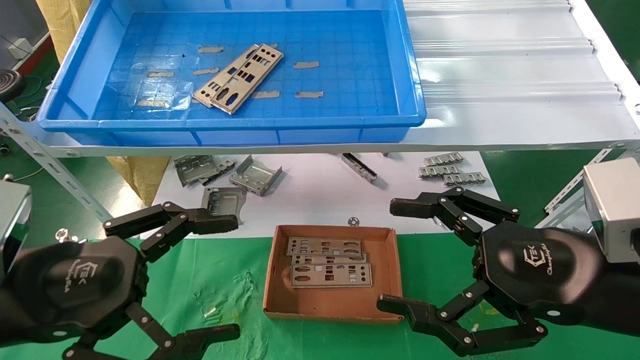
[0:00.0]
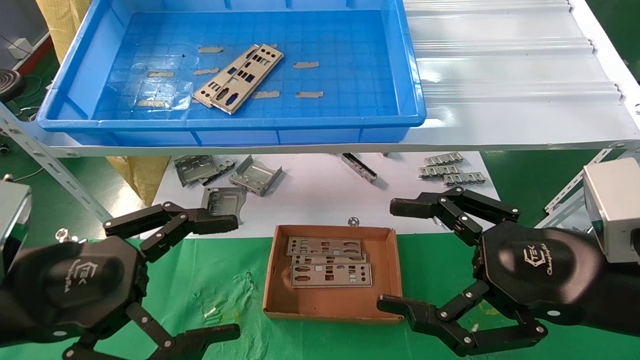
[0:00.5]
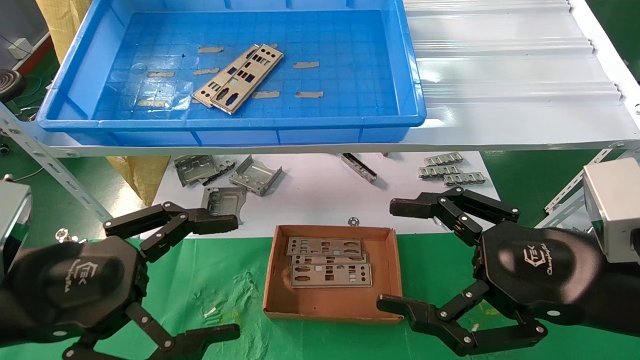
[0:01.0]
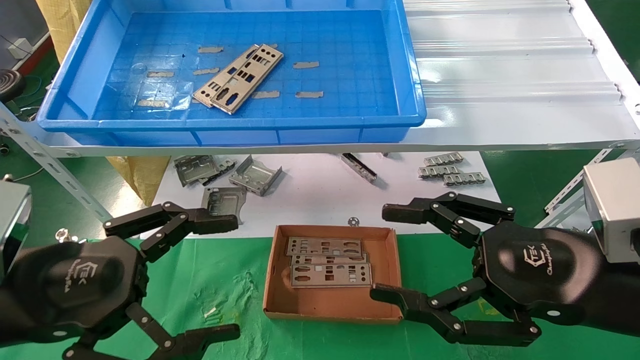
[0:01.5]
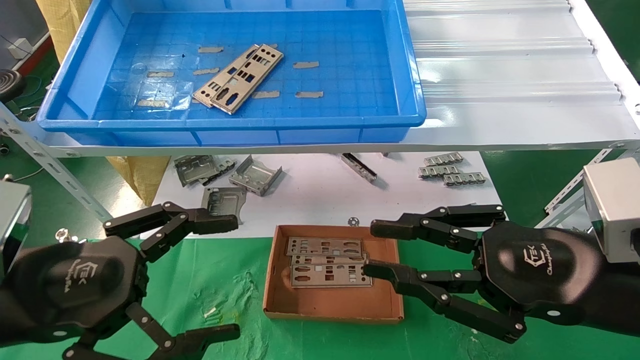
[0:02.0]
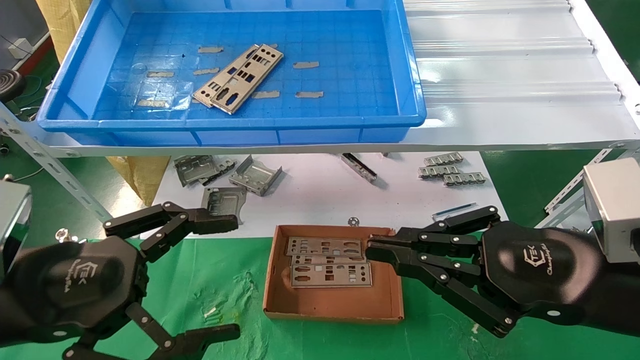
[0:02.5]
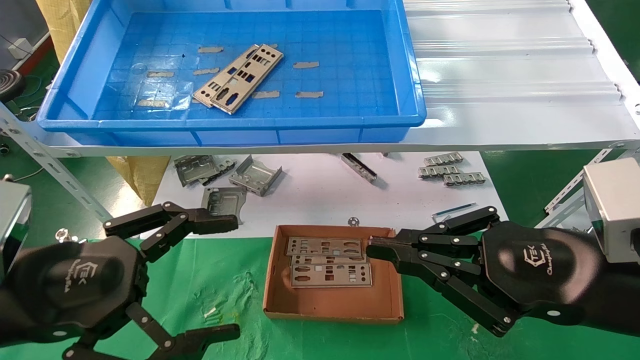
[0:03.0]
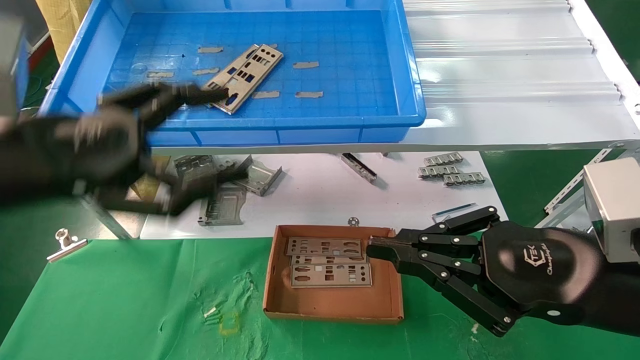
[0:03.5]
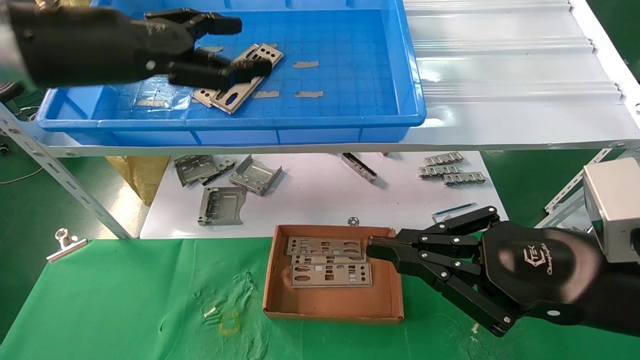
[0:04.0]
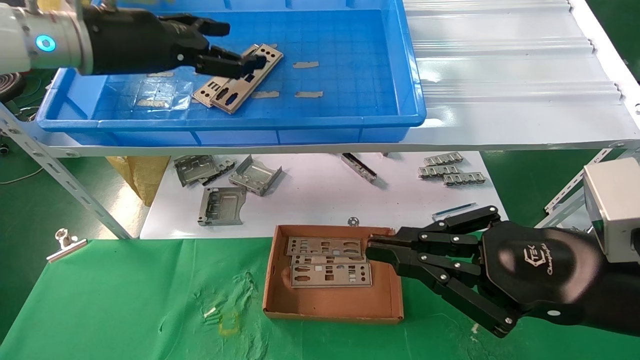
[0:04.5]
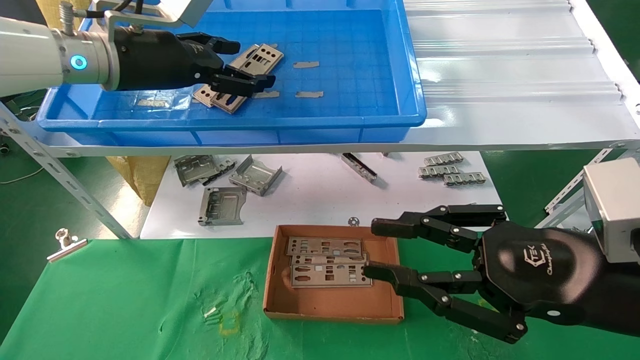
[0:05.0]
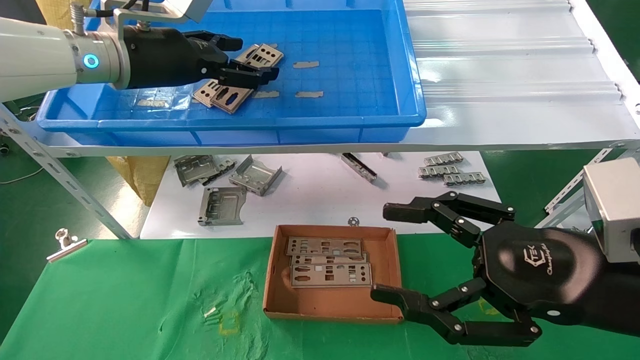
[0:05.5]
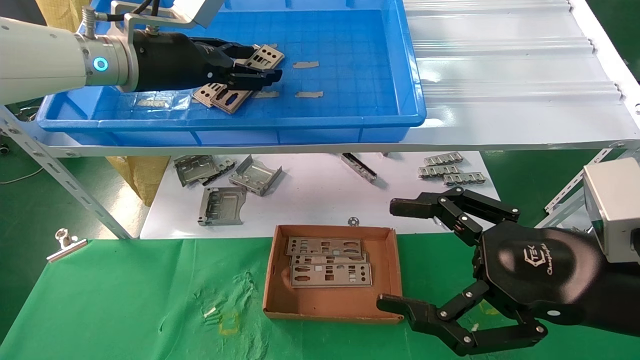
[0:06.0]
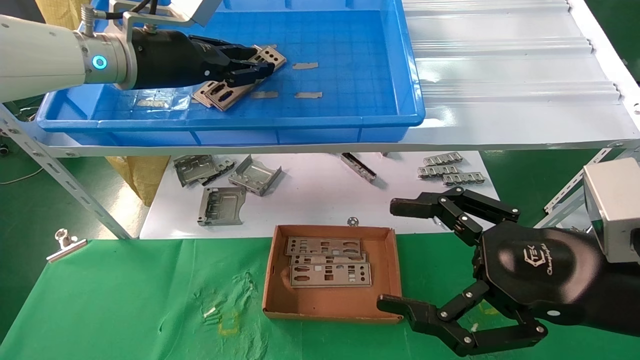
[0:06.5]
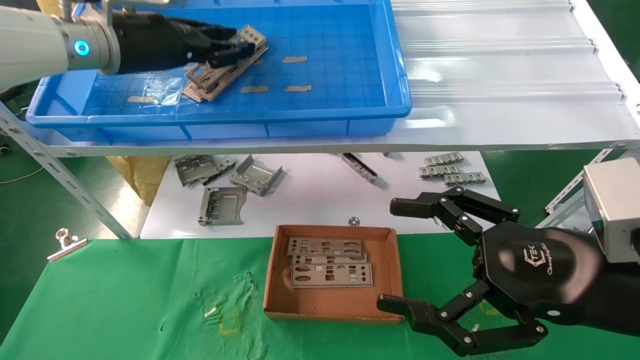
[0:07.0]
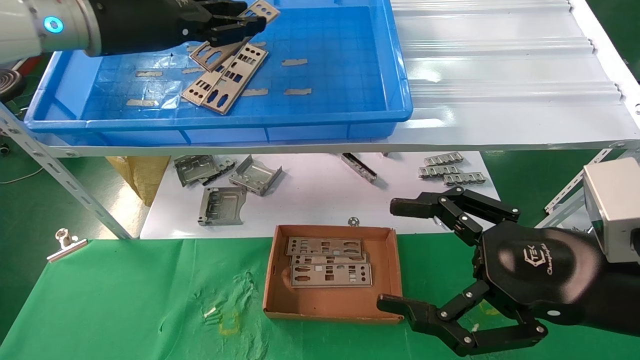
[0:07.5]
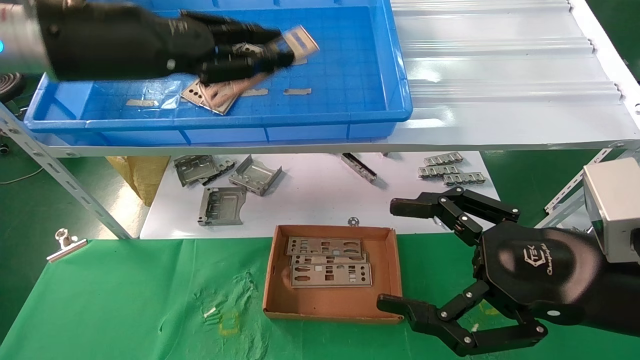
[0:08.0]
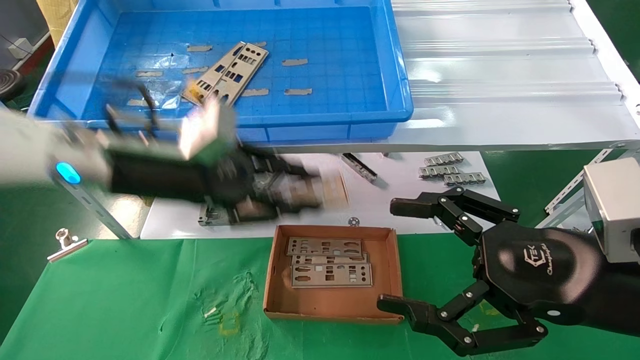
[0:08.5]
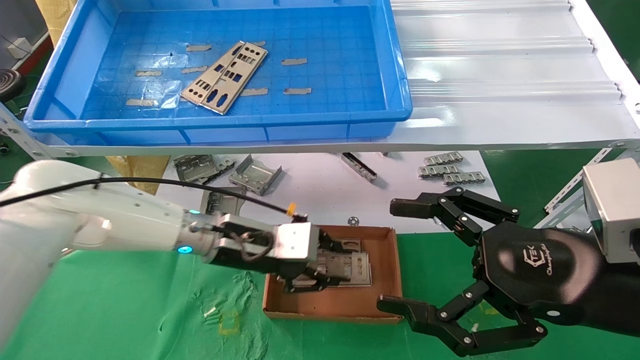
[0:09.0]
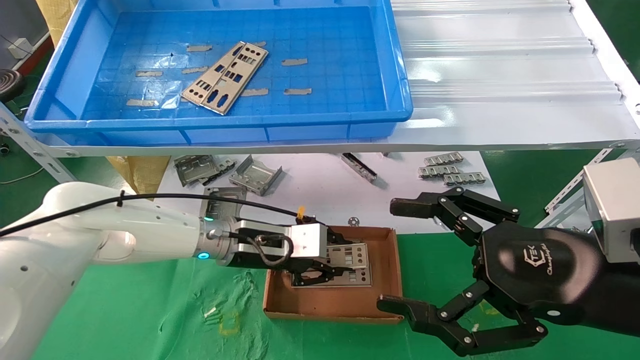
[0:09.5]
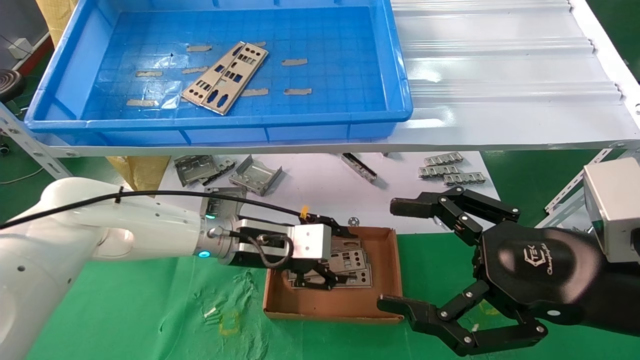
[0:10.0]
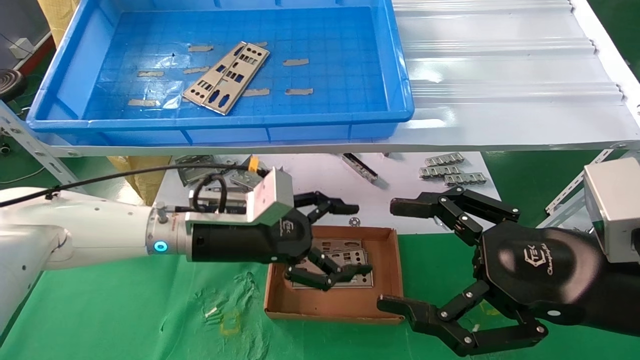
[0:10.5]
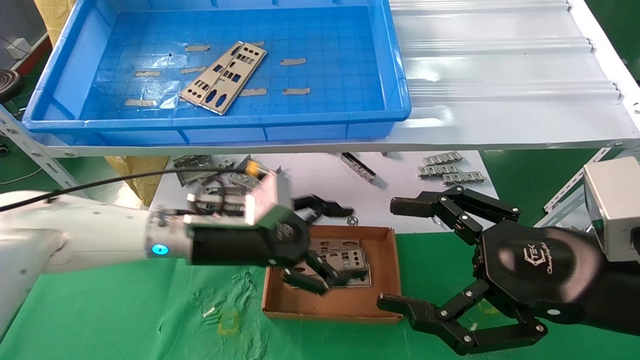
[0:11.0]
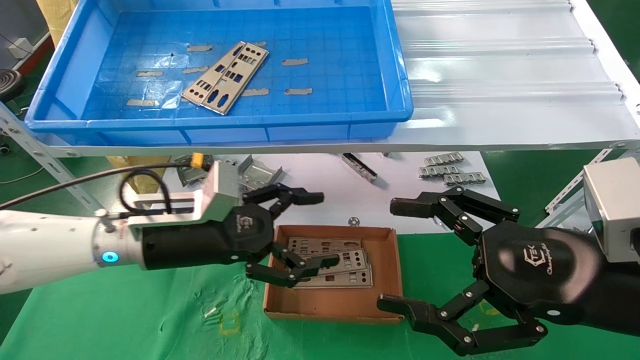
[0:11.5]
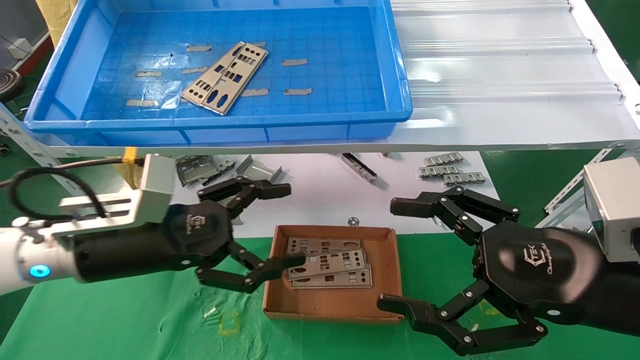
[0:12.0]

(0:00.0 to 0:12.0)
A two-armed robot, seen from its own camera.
Task of the whole recording: pick up the parts on the tray and put them in the cardboard box.
Step, 0:03.5 - 0:06.0: Pick up the IO bracket from the container box.
Step, 0:06.5 - 0:11.0: Place the IO bracket into the ingredient slot.
0:00.0 - 0:02.0: The right gripper closes up.
0:02.0 - 0:04.0: The right gripper closes its fingers. Meanwhile the left gripper is displaced upward and forward by approximately 25 cm.
0:04.0 - 0:06.0: The left gripper shifts roughly 10 cm forward, and closes. Meanwhile the right gripper opens up.
0:06.0 - 0:08.0: The left gripper moves backward, approximately 10 cm, and closes its fingers.
0:08.0 - 0:10.0: The left gripper travels downward and to the right by roughly 30 cm.
0:10.0 - 0:12.0: The left gripper is displaced to the left and backward by about 15 cm, and opens.

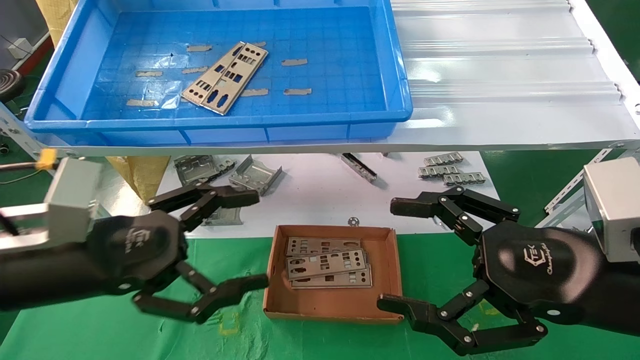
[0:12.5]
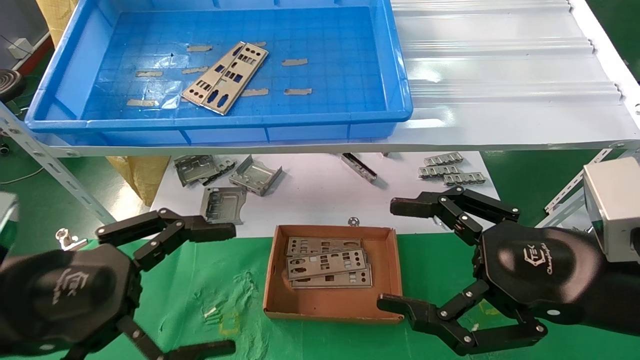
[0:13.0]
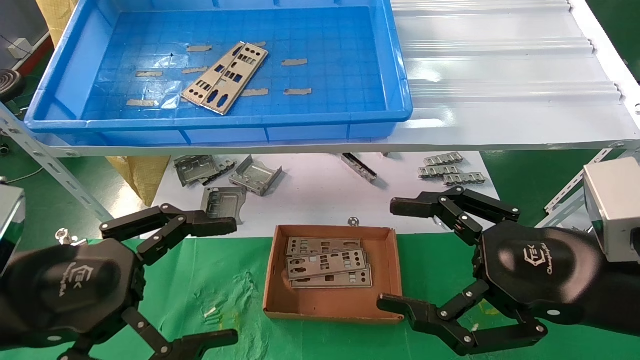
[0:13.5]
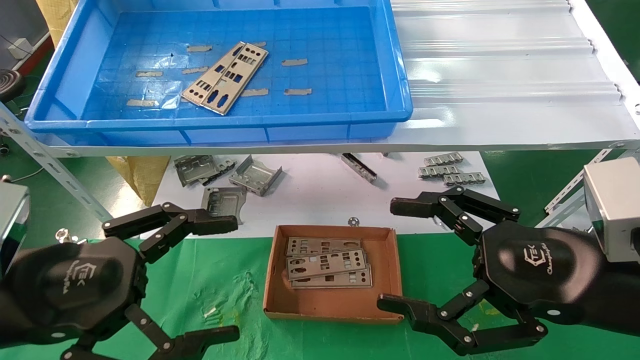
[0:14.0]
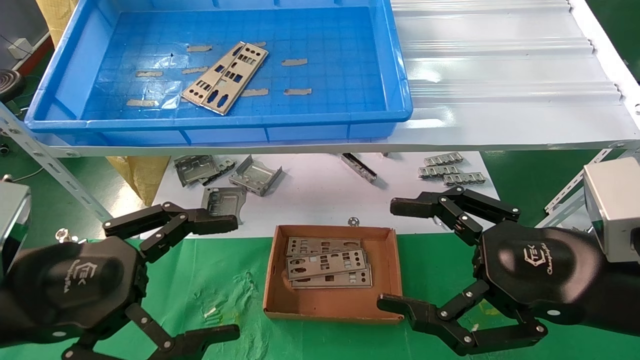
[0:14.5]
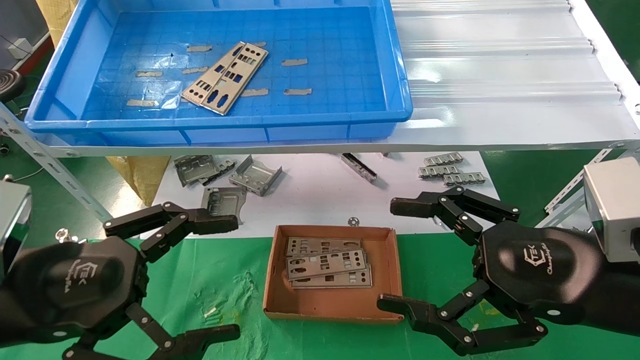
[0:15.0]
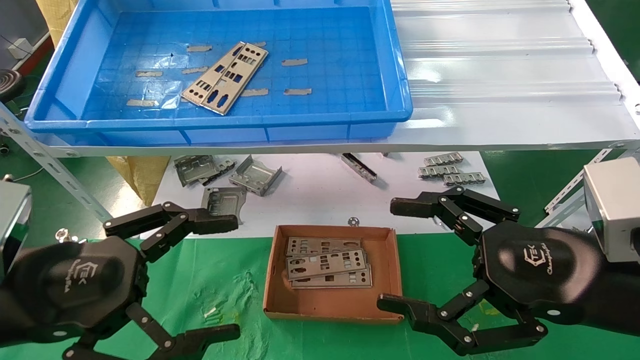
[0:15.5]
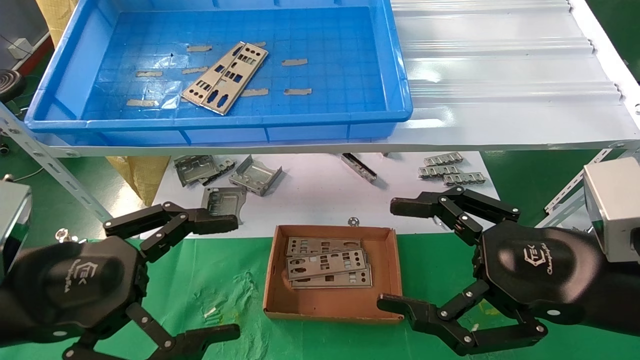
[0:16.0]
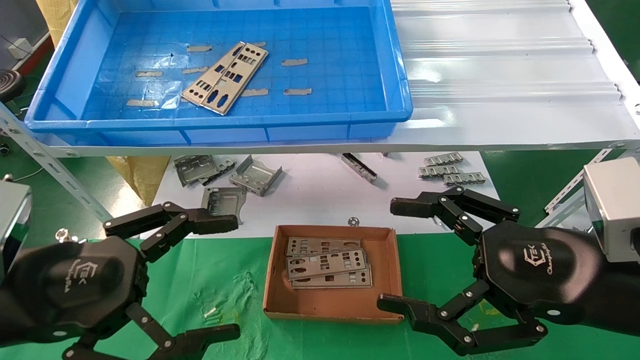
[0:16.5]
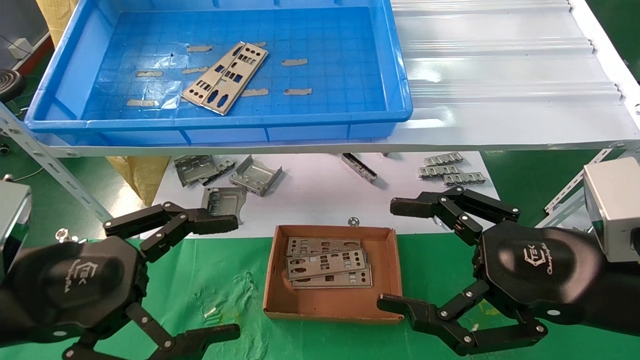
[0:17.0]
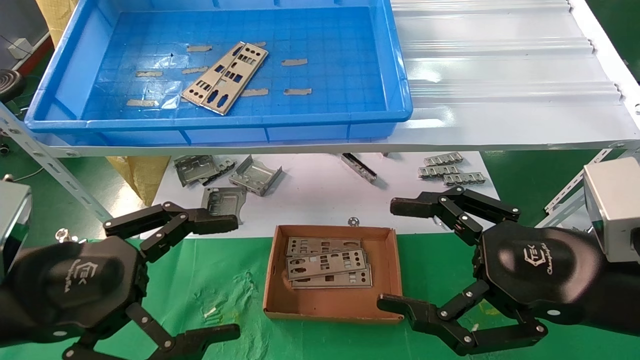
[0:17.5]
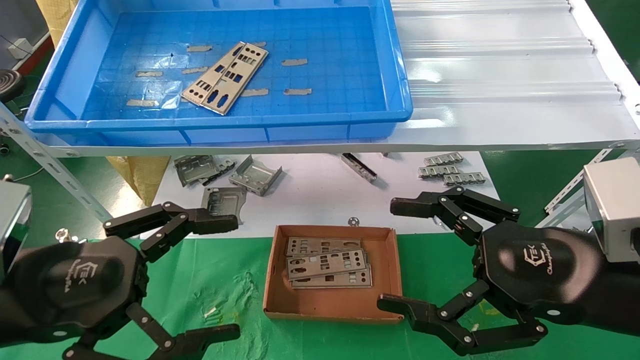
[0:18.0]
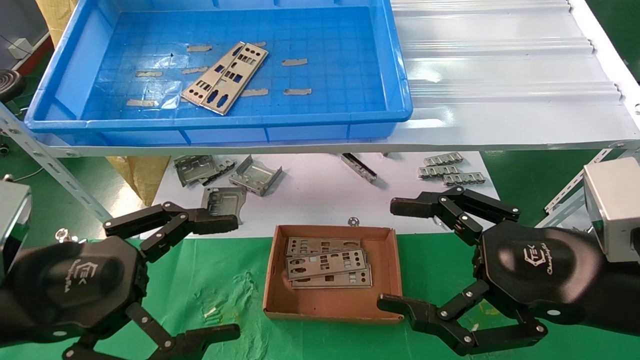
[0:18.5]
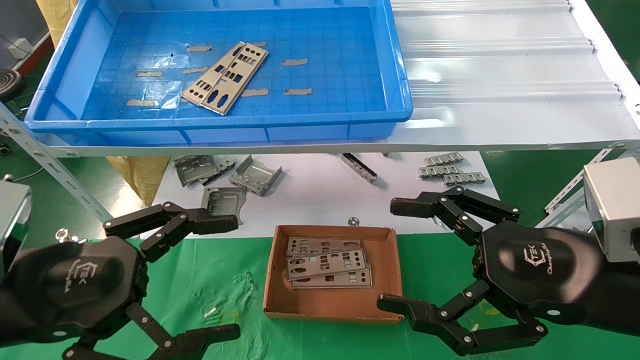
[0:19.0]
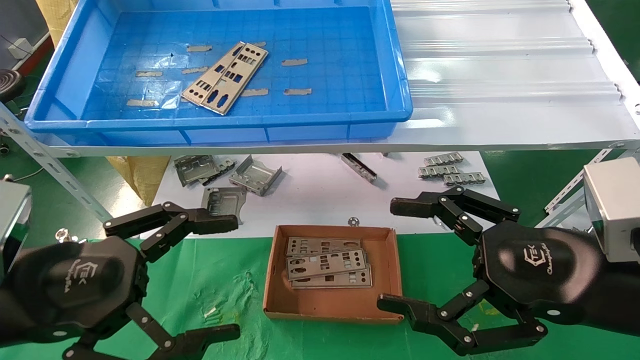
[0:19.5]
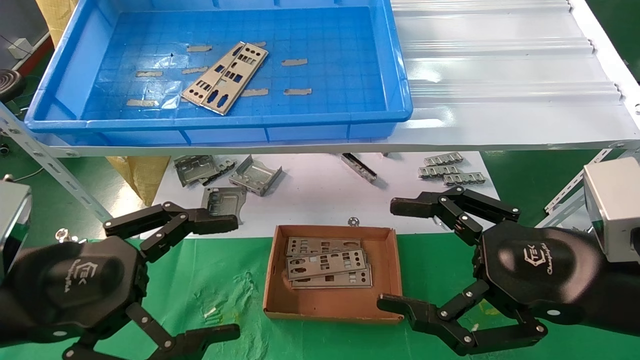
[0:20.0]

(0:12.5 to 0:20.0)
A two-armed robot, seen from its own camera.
Task of the whole recording: pick up the parts on the tray and put them in the cardboard box.
0:12.5 - 0:14.5: The left gripper is displaced backward by about 5 cm.
0:14.5 - 0:20.0: Both grippers stay put.
